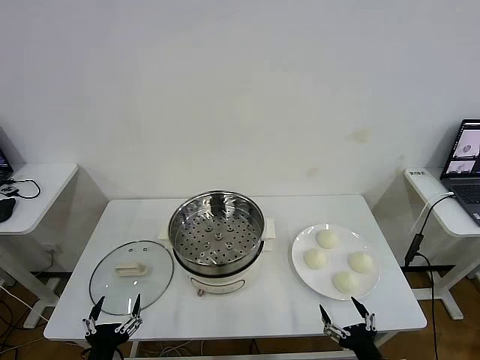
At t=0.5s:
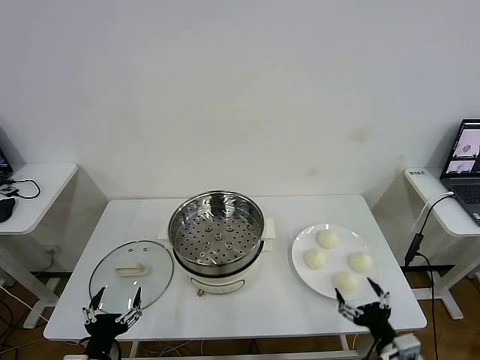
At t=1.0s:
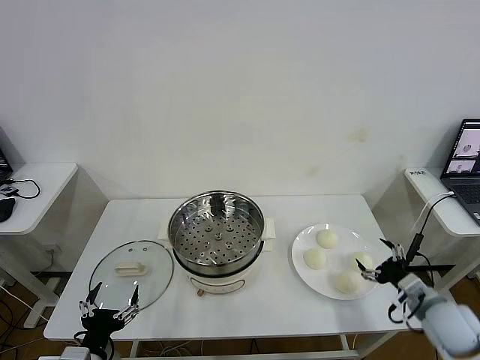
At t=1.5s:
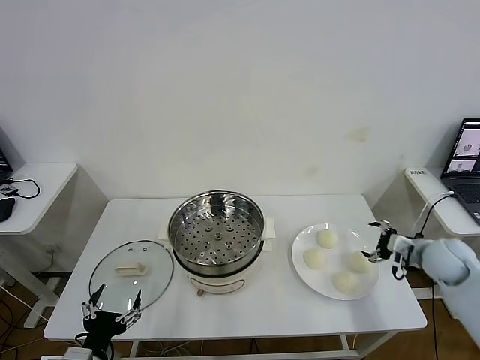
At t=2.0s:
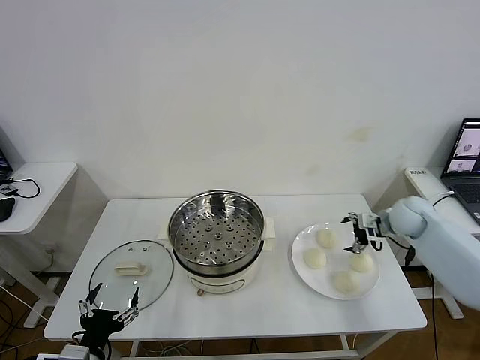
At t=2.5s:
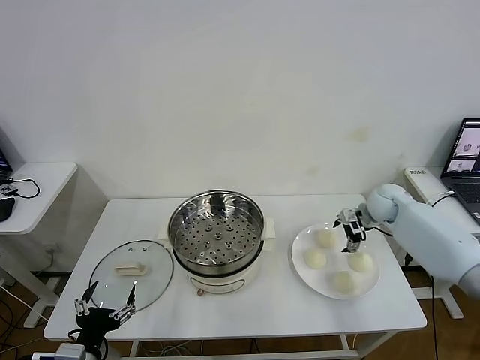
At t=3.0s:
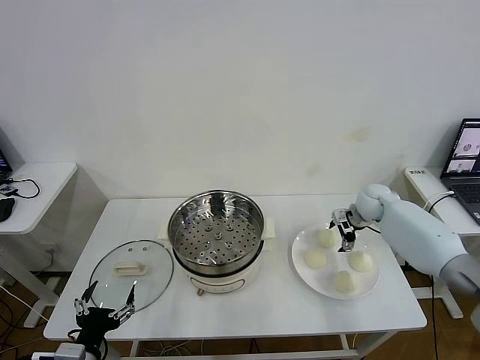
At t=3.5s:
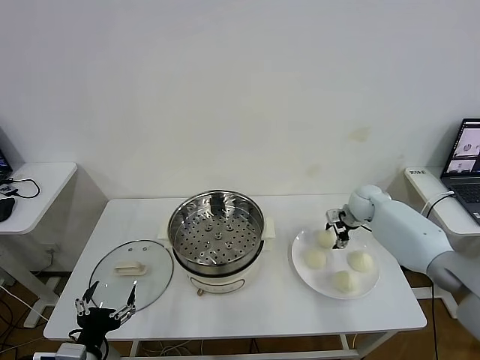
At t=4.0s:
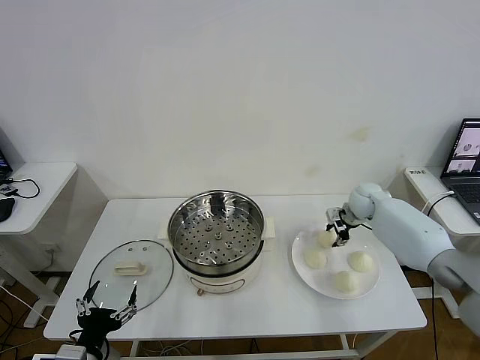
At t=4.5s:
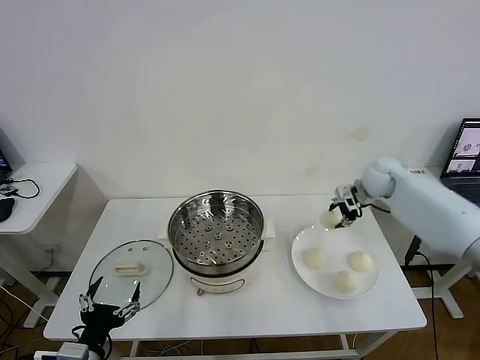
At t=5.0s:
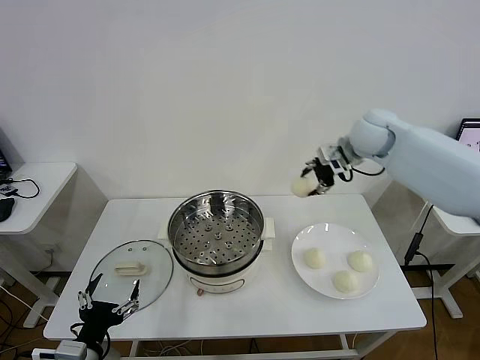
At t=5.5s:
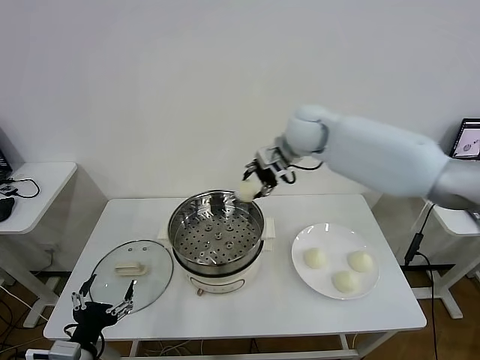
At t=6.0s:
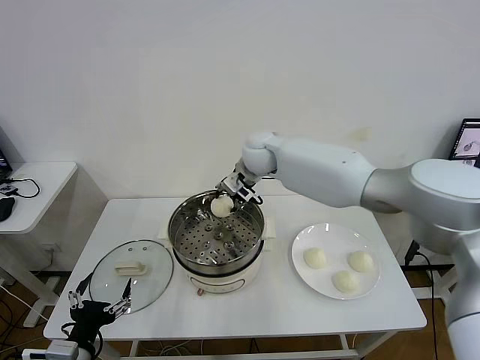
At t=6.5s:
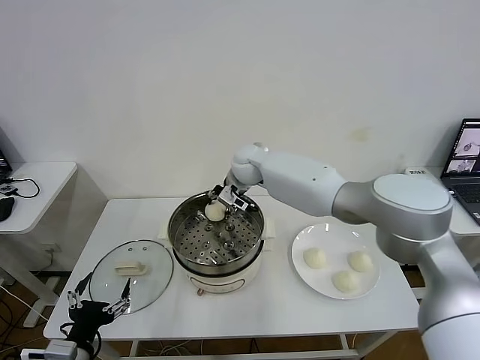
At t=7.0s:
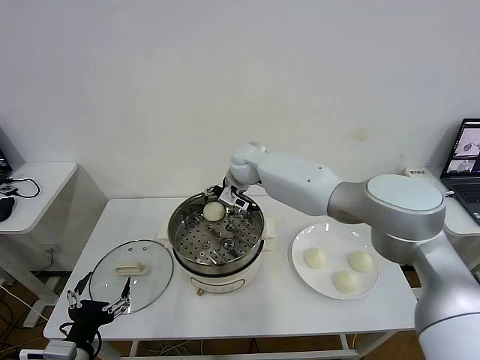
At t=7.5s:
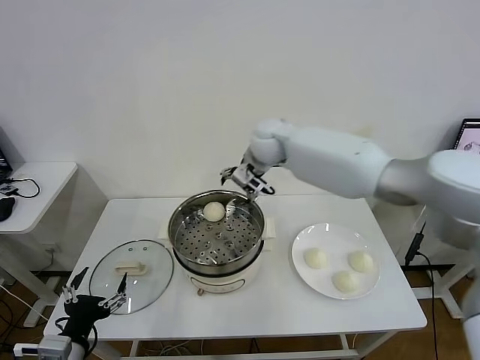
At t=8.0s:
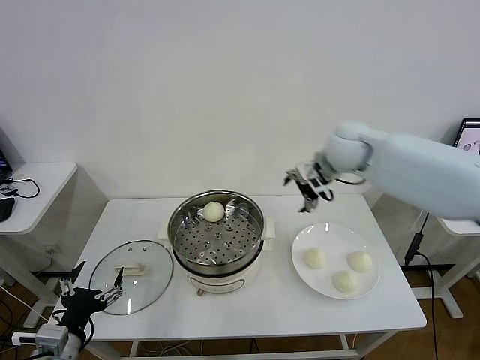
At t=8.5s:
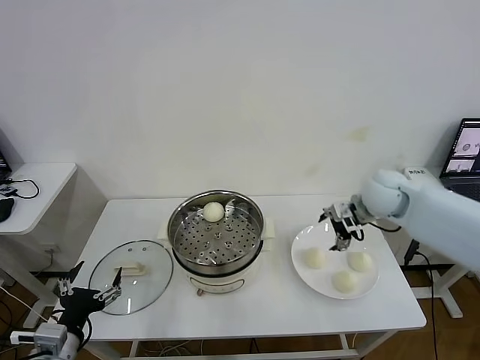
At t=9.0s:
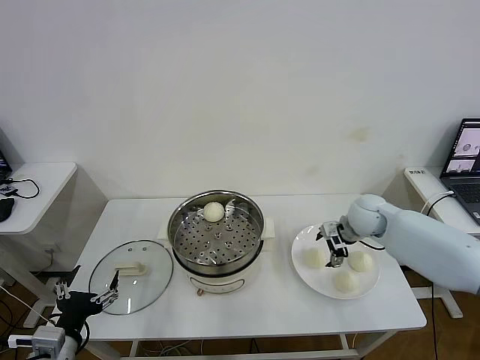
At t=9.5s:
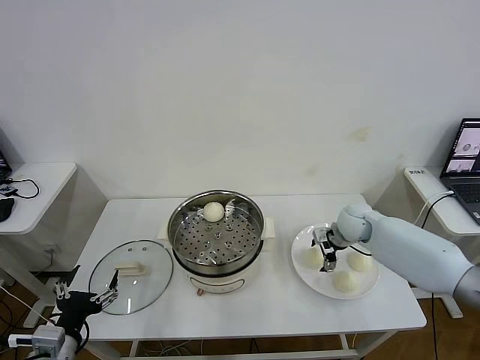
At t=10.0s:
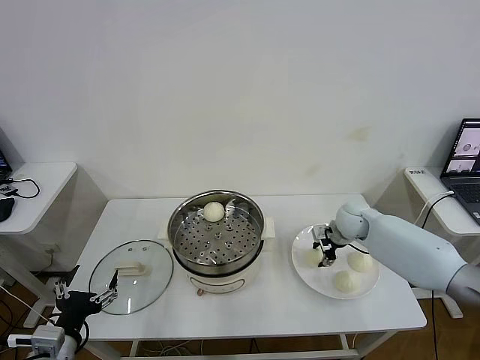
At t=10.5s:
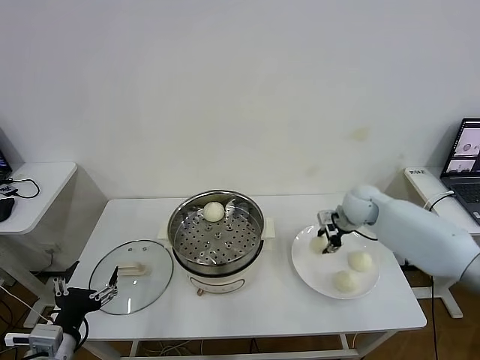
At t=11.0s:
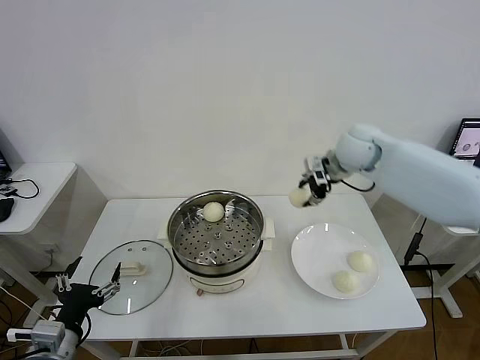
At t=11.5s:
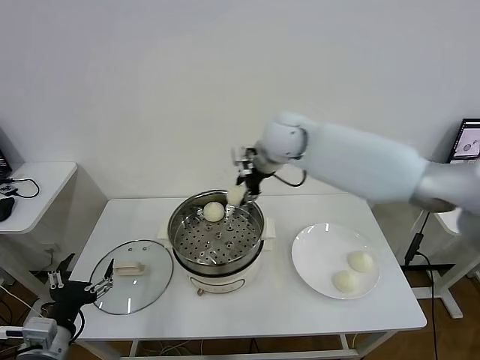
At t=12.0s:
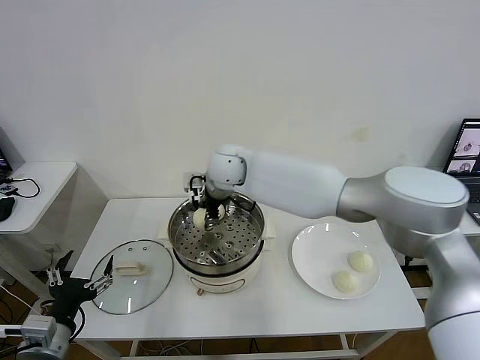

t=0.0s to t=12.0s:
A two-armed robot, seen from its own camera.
Task of the whole recording: take steamed baozi put them in steamer then cover it.
Step, t=0.0s to t=3.5s: Grasp the baozi in the plate with right gripper.
Step, t=4.0s to t=7.0s: Place the baozi on the steamer with right gripper.
Step, t=7.5s to t=10.0s: Grasp the baozi in the plate with right gripper.
t=2.0s to t=4.0s: The right gripper is displaced forward and to the left by some 10 cm, and closes.
t=4.0s to t=6.0s: The right gripper shifts about 35 cm to the left and upward.
t=6.0s to t=8.0s: The right gripper goes about 20 cm to the right, and opens its fingers.
t=8.0s to t=10.0s: The right gripper heads downward, covering roughly 20 cm, and closes up.
t=10.0s to t=12.0s: The right gripper moves to the left and upward, about 35 cm.

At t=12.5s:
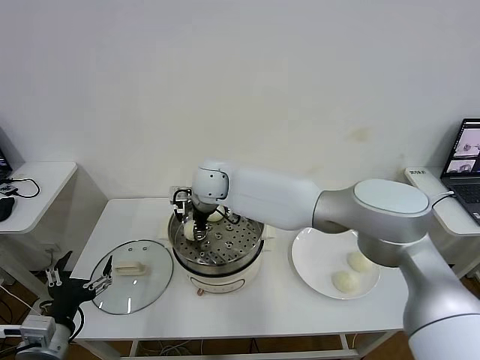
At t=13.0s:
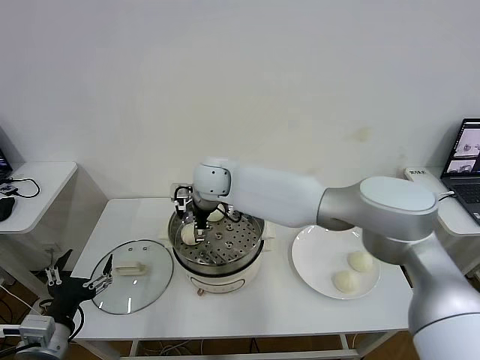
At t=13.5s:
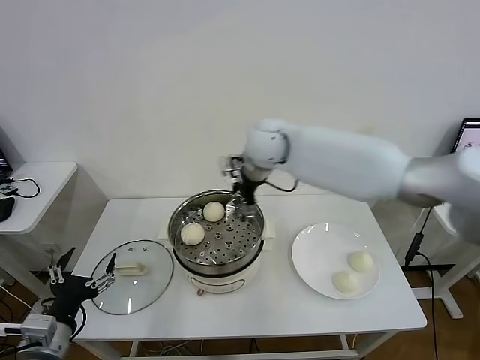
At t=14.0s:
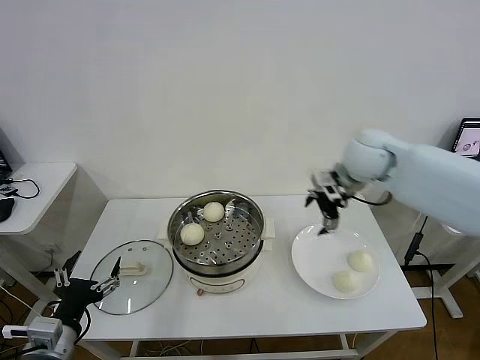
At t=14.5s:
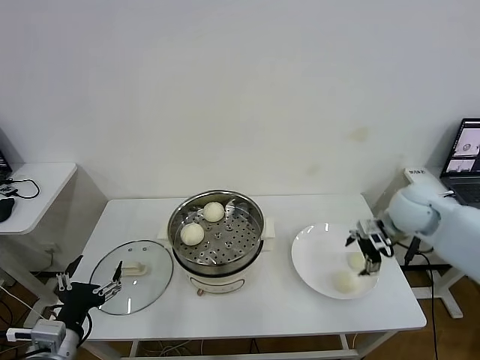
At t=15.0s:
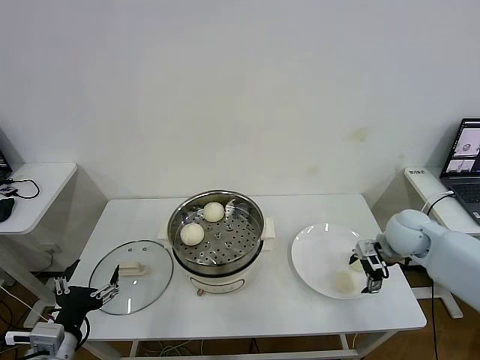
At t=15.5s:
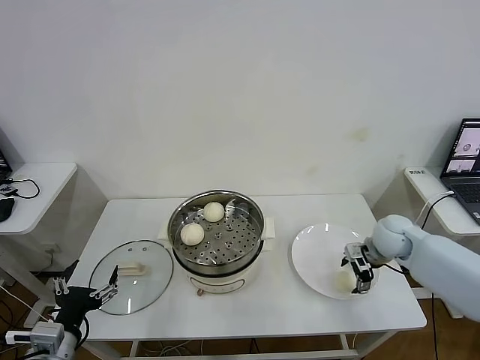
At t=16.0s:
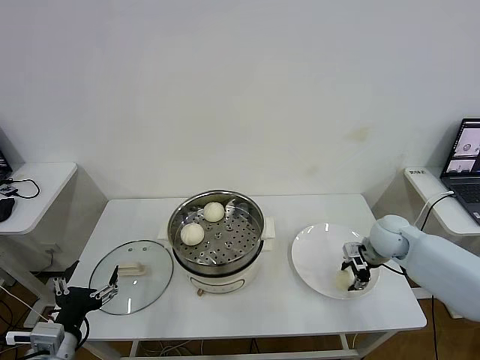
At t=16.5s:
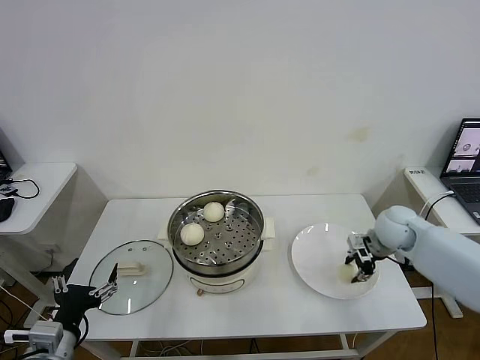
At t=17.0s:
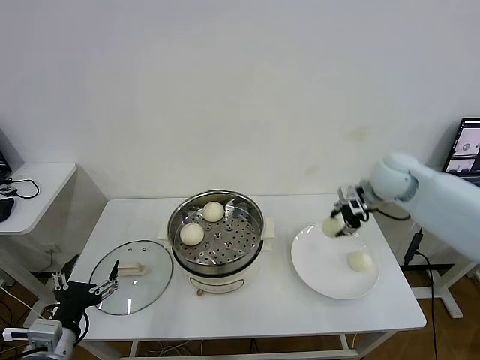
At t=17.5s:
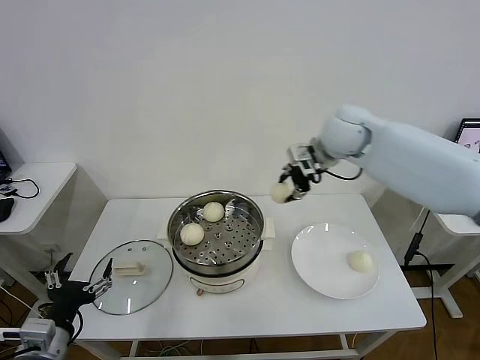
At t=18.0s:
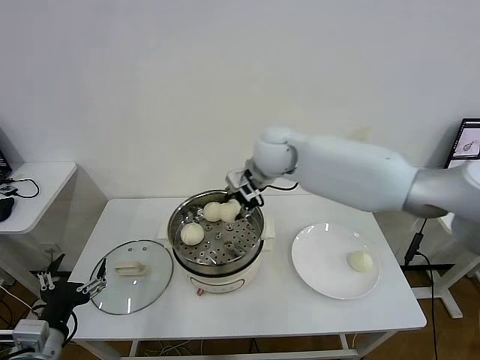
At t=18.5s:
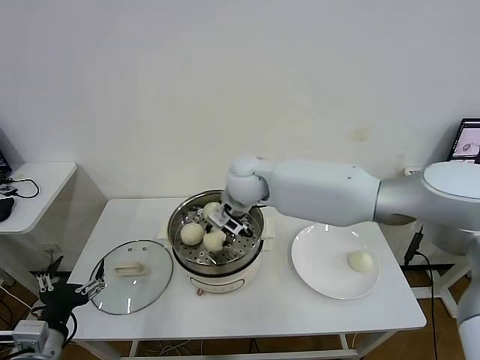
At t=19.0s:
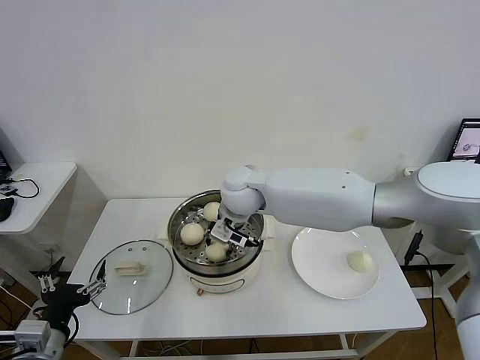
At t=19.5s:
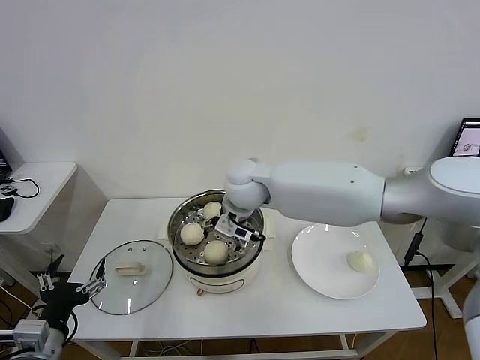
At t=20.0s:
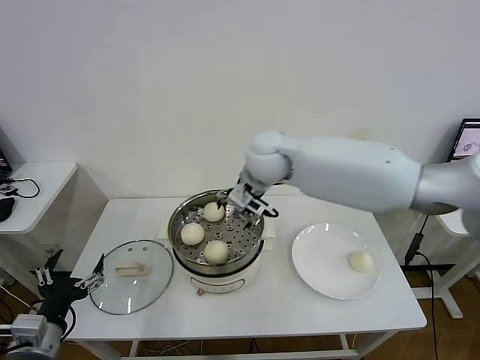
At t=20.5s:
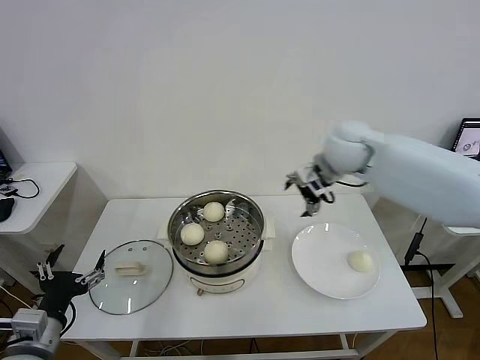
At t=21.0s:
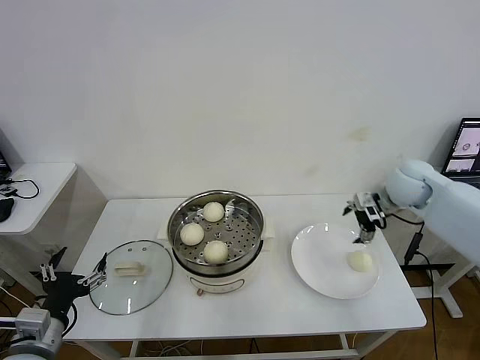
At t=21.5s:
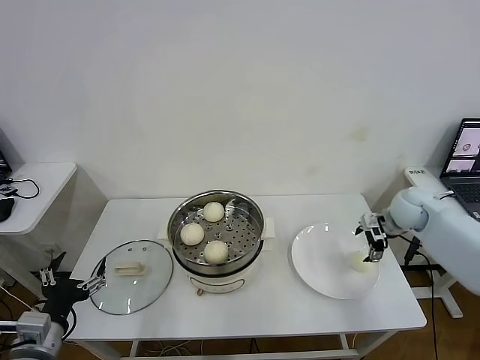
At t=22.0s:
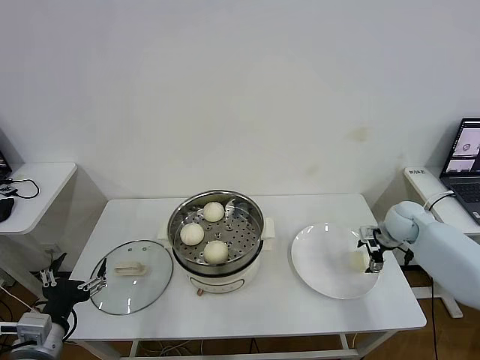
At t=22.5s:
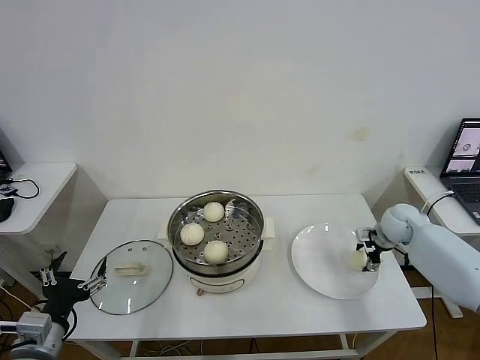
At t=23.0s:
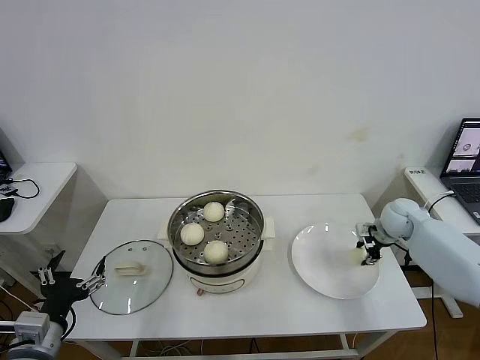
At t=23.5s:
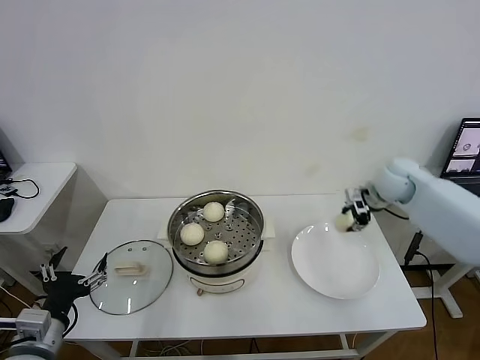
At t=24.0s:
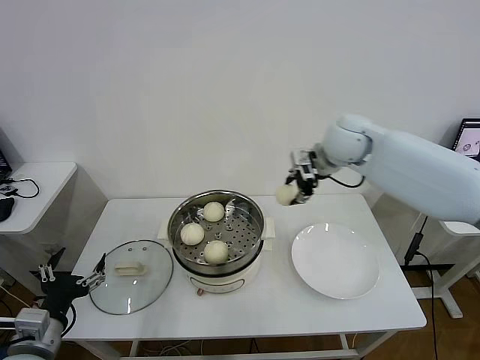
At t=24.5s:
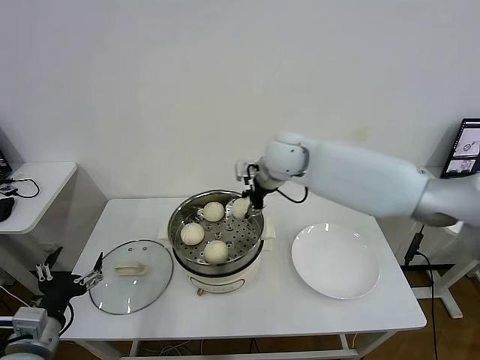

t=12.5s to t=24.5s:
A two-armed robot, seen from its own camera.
Task of the whole recording: take steamed baozi put them in steamer then cover it.
Step, t=13.5s to t=16.0s: Grasp the baozi in the plate with right gripper.
Step, t=16.5s to t=19.5s: Place the baozi on the steamer with right gripper.
Step, t=20.0s to t=22.5s: Grasp the baozi in the plate with right gripper.
t=12.5s to t=14.5s: The right gripper shifts about 40 cm to the right, and opens its fingers.
t=14.5s to t=16.5s: The right gripper shifts roughly 5 cm downward, and closes.
t=16.5s to t=18.5s: The right gripper shifts some 35 cm to the left.
t=18.5s to t=20.5s: The right gripper heads to the right, covering some 20 cm, and opens its fingers.
t=20.5s to t=22.5s: The right gripper shifts roughly 30 cm downward and to the right, and closes its fingers.
t=22.5s to t=24.5s: The right gripper heads to the left and upward, covering roughly 35 cm, and closes its fingers.

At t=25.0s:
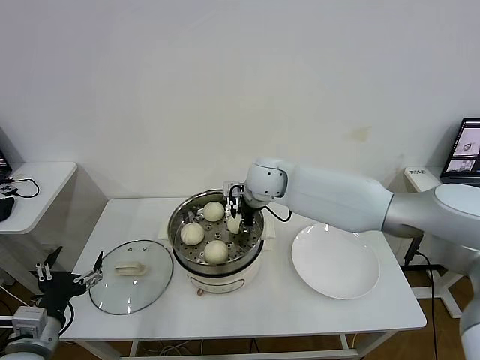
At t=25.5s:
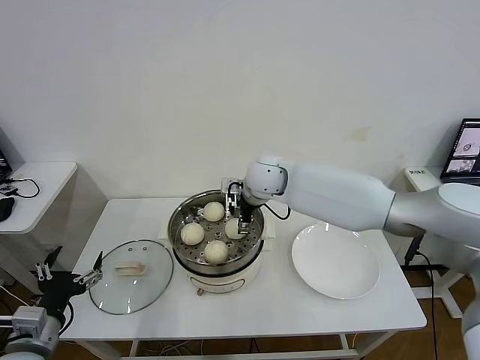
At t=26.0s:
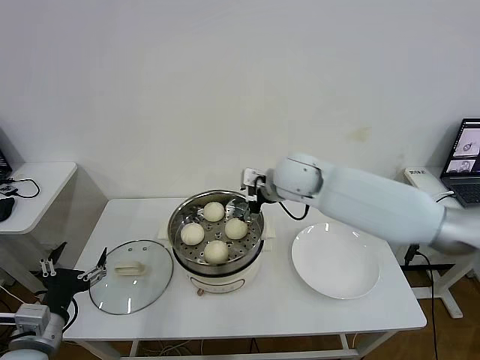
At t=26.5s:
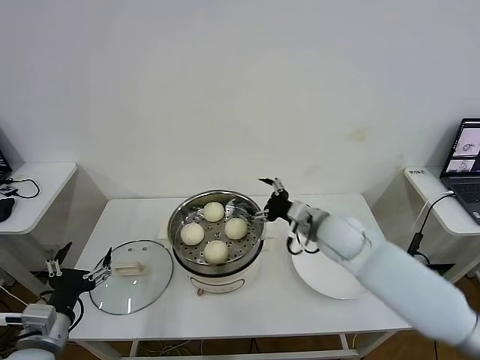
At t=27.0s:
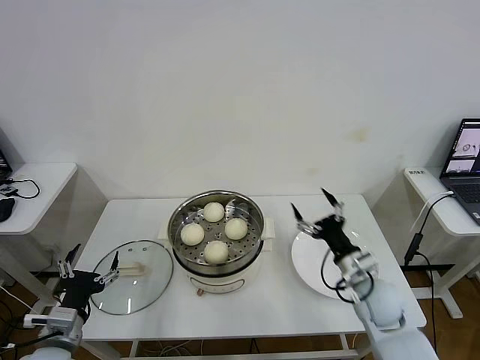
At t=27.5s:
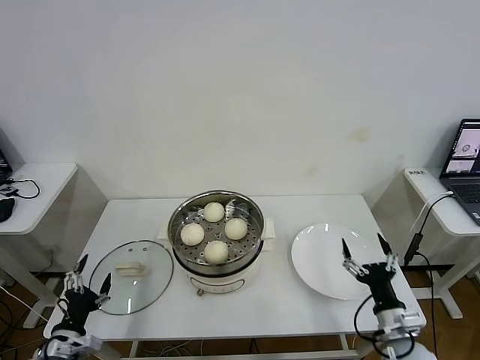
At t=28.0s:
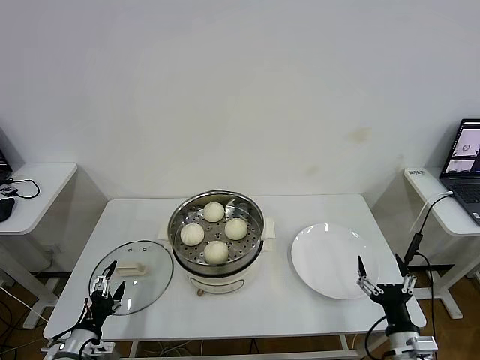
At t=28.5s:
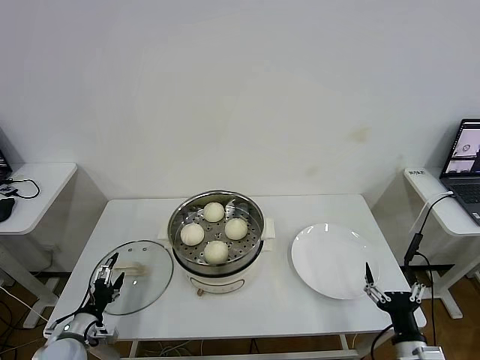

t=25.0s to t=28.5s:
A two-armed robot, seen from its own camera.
Task of the whole recording: take steamed baozi put them in steamer then cover it.
t=25.0s to t=27.0s: The right gripper shifts about 35 cm to the right, backward and downward, and opens up.
t=27.0s to t=28.5s: The left gripper shifts about 15 cm downward and to the left. Meanwhile the right gripper is displaced backward and downward by roughly 20 cm.
